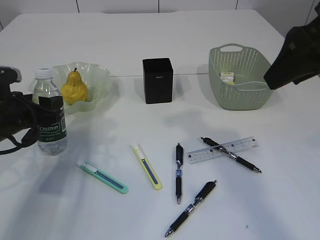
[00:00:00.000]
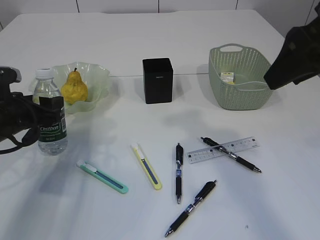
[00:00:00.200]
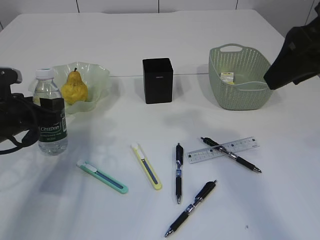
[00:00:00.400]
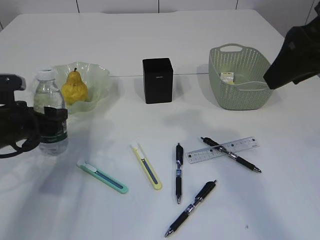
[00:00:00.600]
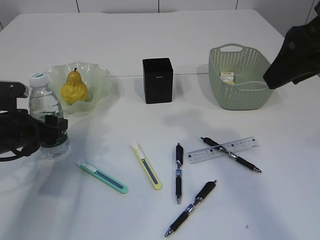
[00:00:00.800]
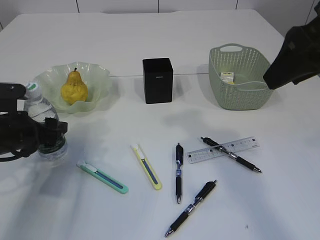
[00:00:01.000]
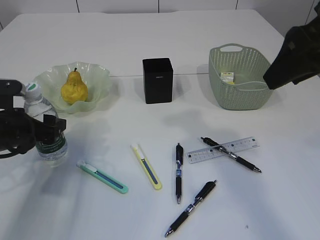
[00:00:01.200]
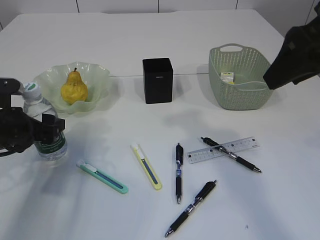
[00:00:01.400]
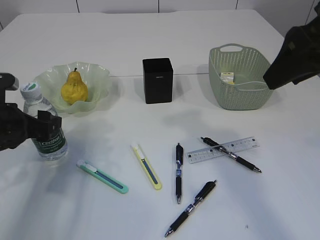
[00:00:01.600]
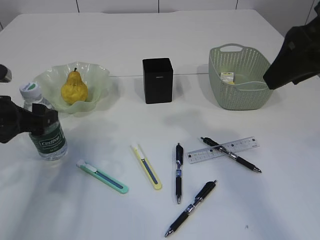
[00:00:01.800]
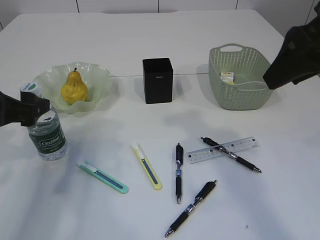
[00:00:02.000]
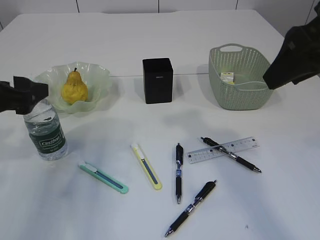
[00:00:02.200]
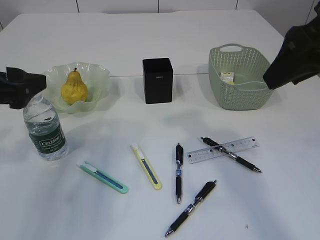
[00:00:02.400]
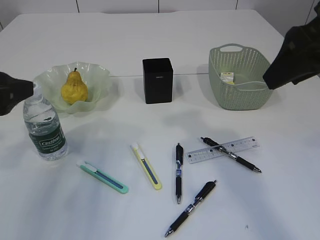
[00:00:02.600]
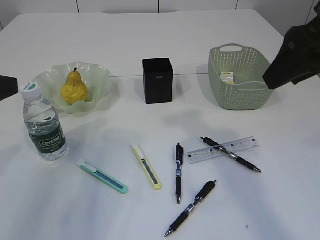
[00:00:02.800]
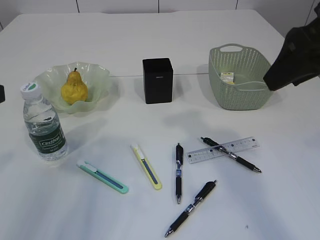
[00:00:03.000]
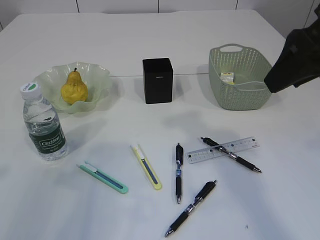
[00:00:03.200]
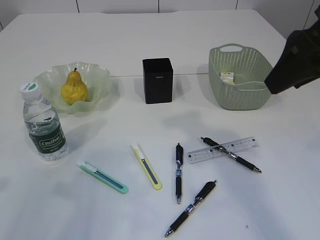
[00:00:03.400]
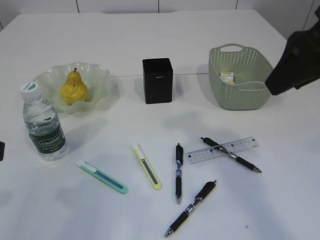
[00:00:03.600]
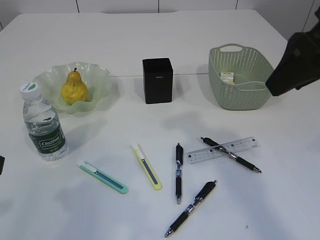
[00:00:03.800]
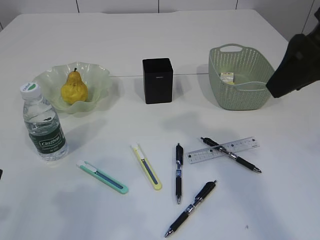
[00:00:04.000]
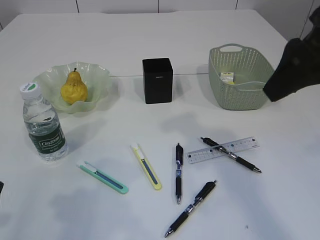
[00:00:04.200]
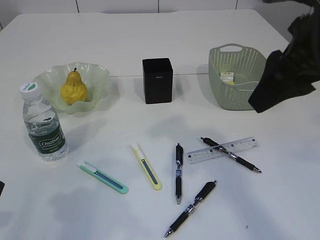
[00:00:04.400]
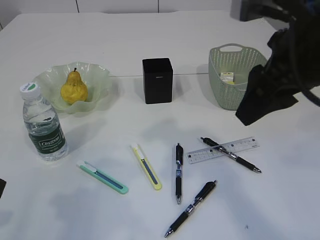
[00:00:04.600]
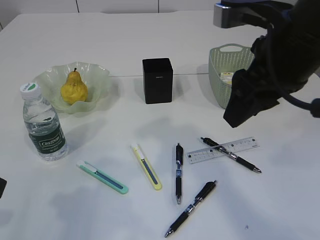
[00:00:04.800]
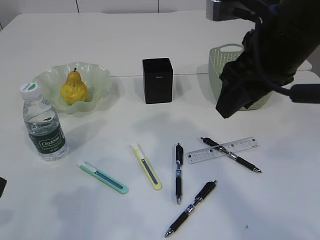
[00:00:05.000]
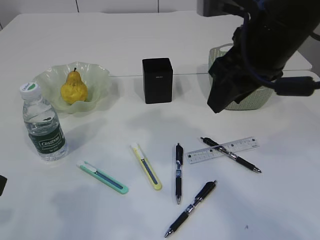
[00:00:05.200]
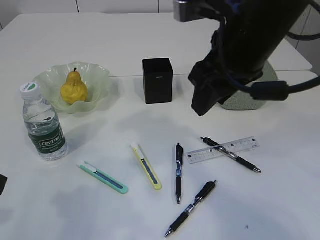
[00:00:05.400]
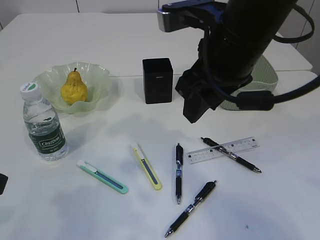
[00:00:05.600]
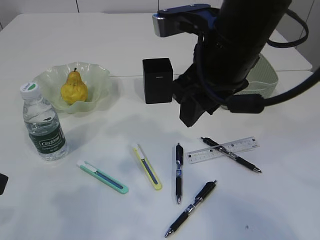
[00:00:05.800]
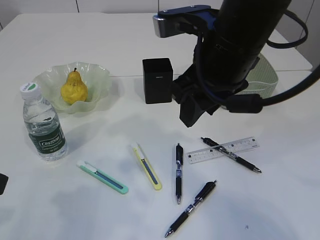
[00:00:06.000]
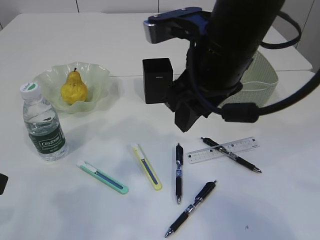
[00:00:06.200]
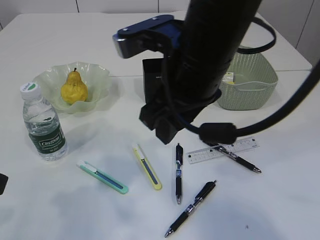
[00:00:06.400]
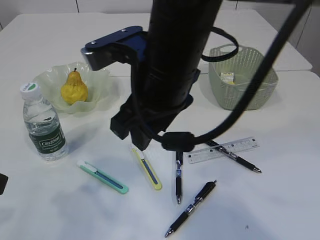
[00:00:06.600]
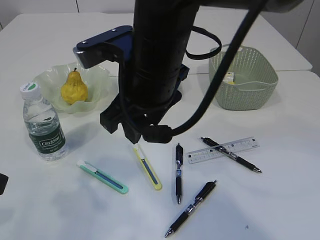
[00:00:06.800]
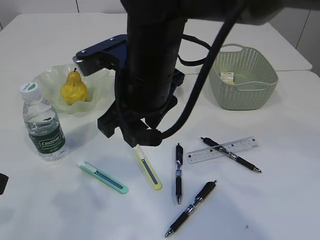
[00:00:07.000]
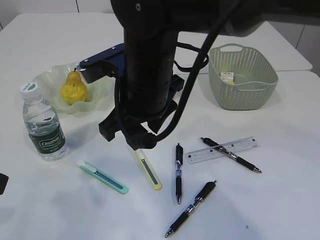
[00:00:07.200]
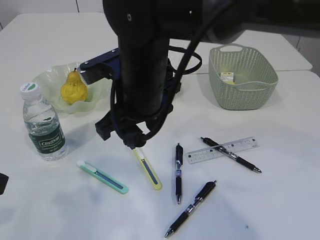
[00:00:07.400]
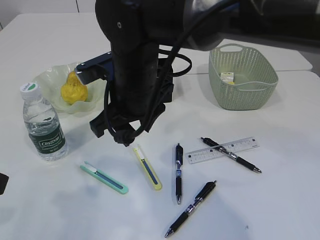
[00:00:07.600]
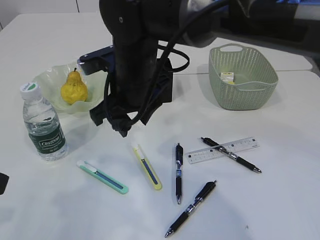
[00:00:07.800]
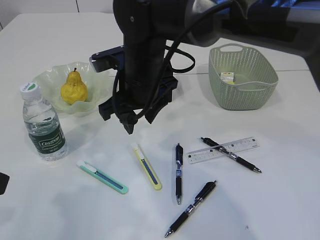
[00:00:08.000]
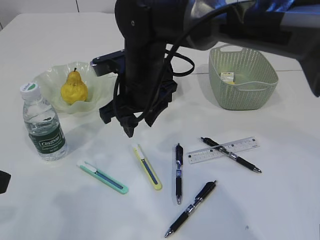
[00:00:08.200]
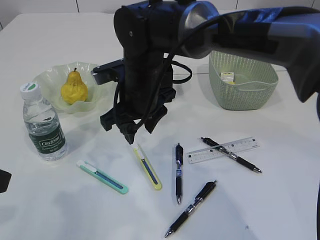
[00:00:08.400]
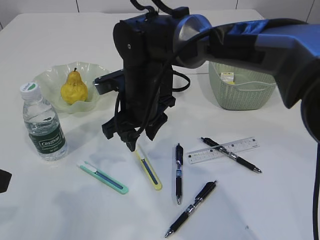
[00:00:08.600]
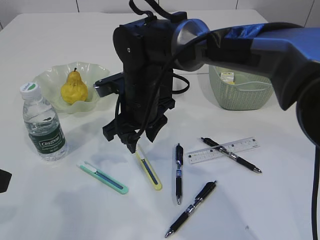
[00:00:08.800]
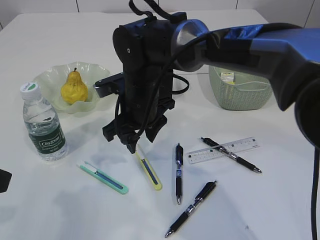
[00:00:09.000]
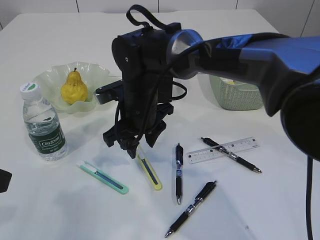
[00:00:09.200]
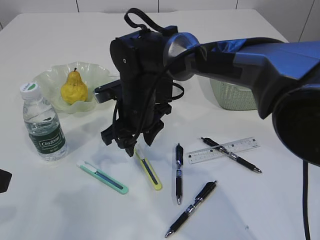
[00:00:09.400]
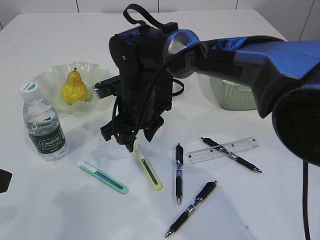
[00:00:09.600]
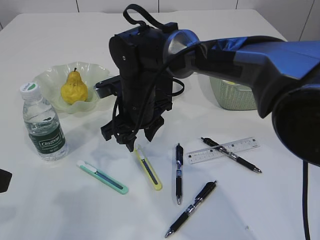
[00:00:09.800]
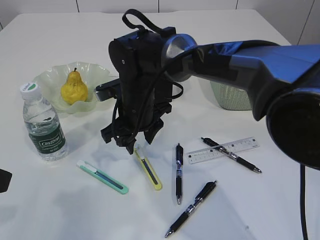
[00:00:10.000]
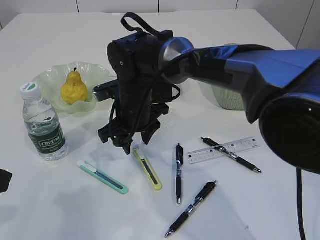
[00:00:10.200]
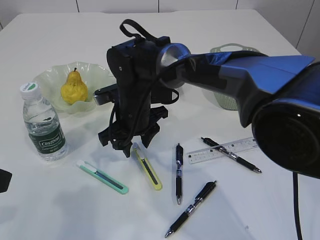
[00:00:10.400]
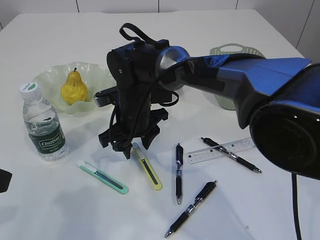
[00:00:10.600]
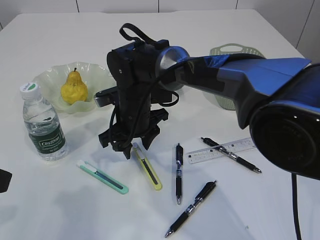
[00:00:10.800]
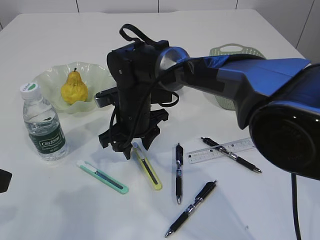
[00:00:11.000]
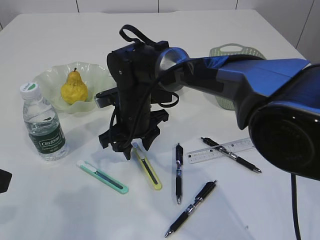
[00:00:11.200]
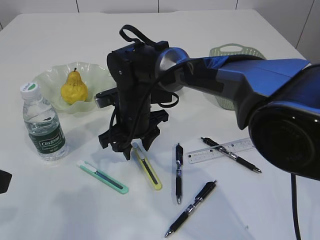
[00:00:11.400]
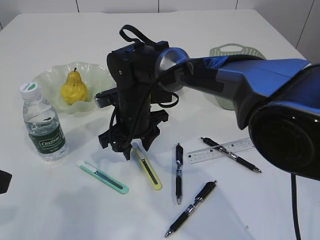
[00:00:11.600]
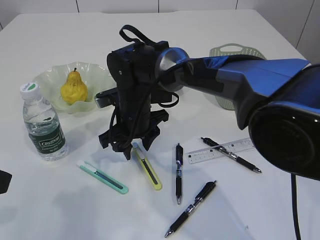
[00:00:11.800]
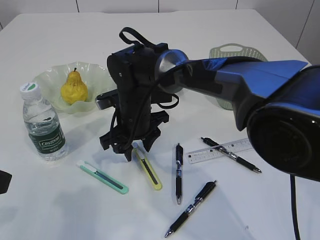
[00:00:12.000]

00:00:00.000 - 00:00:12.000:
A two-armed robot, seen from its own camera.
Step, 00:00:00.000 - 00:00:02.600: Place the bottle.
00:00:00.000 - 00:00:01.600: The grippers stay close to where they were, moving slightly.
00:00:01.600 - 00:00:03.000: The left gripper moves upward and backward, approximately 20 cm.
00:00:04.400 - 00:00:06.000: The right gripper goes roughly 10 cm to the left.
00:00:06.000 - 00:00:07.600: The right gripper travels to the left and downward by about 15 cm.
00:00:07.600 - 00:00:09.000: The right gripper shifts about 5 cm downward.
00:00:10.400 - 00:00:12.000: The two grippers keep their place.

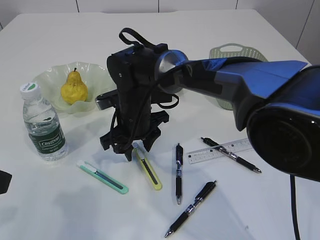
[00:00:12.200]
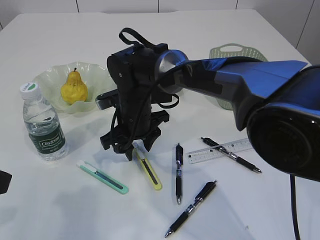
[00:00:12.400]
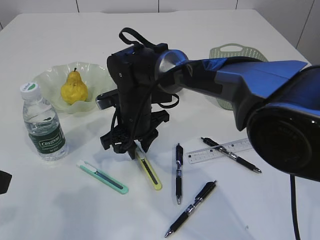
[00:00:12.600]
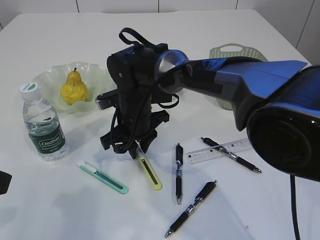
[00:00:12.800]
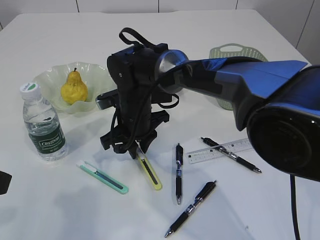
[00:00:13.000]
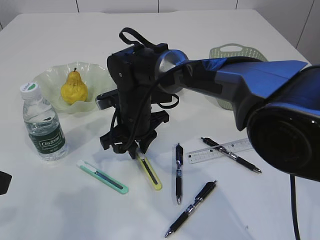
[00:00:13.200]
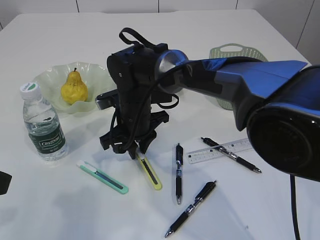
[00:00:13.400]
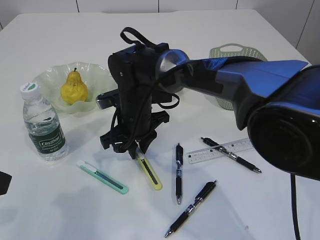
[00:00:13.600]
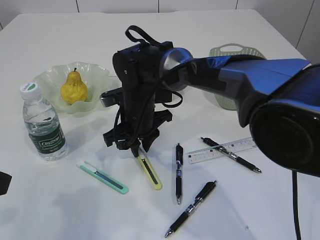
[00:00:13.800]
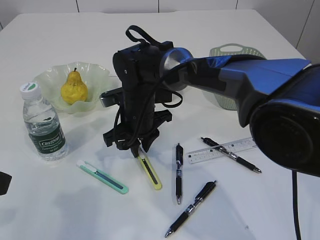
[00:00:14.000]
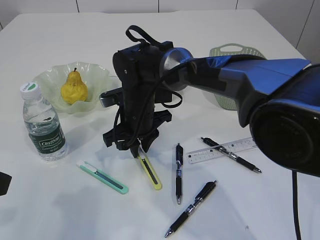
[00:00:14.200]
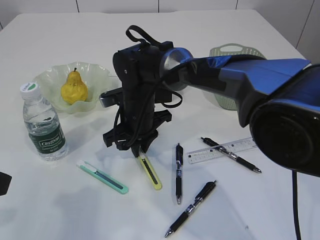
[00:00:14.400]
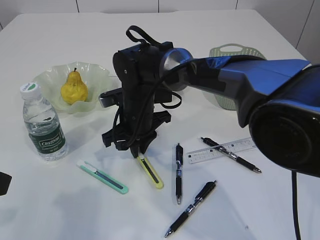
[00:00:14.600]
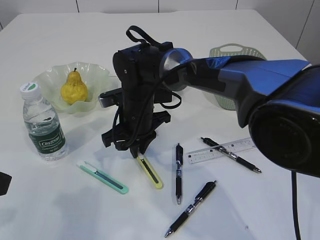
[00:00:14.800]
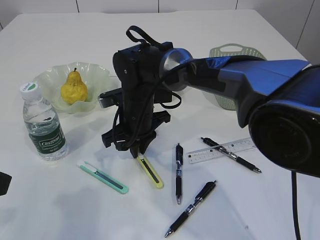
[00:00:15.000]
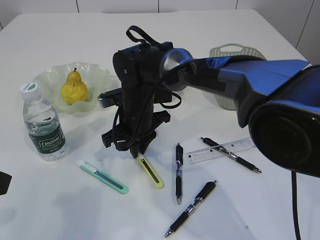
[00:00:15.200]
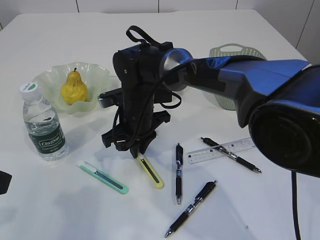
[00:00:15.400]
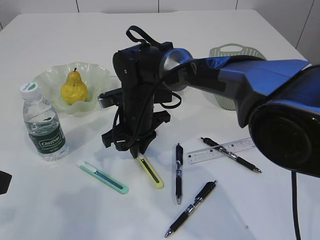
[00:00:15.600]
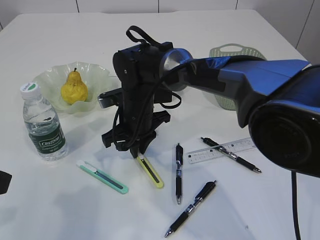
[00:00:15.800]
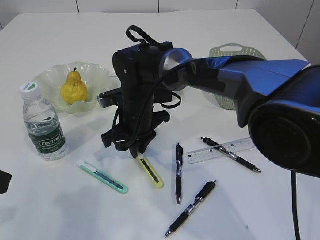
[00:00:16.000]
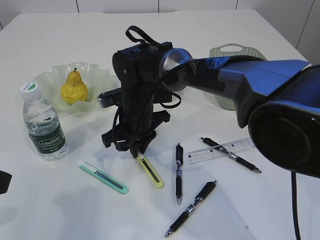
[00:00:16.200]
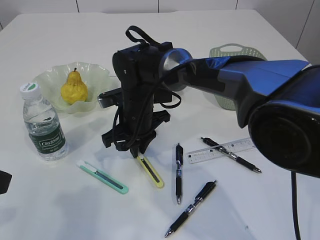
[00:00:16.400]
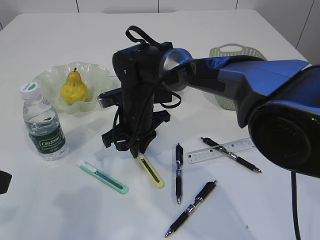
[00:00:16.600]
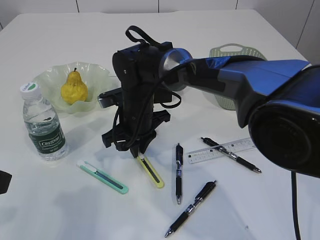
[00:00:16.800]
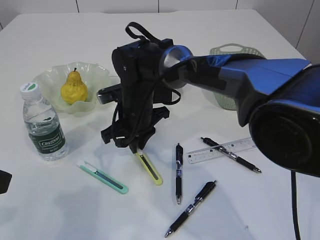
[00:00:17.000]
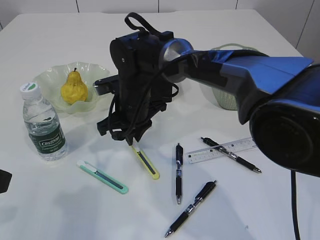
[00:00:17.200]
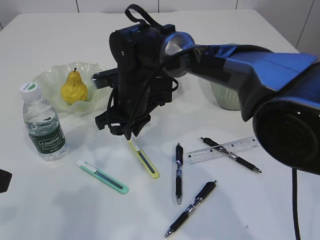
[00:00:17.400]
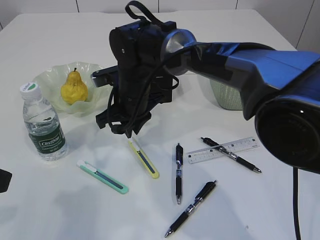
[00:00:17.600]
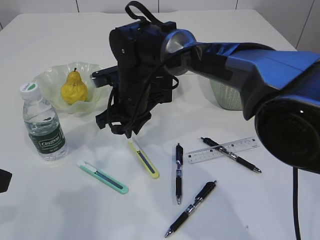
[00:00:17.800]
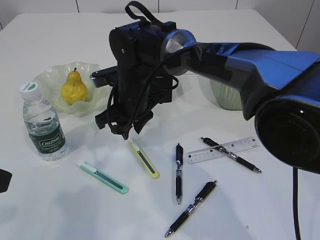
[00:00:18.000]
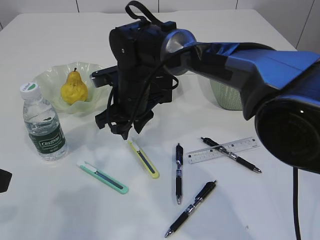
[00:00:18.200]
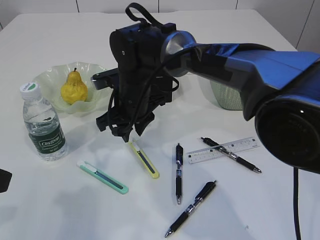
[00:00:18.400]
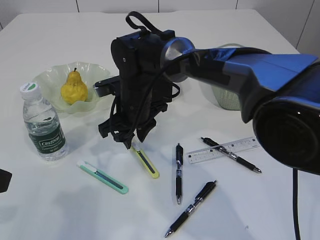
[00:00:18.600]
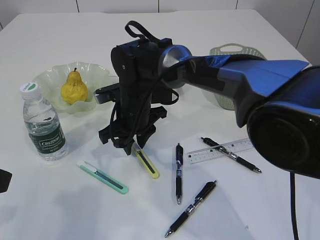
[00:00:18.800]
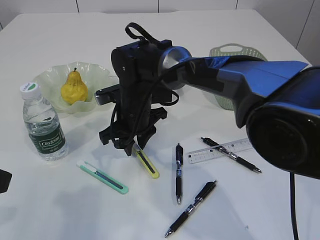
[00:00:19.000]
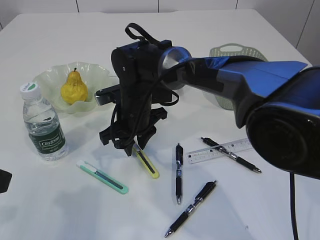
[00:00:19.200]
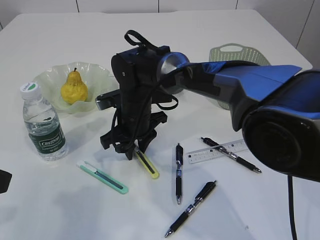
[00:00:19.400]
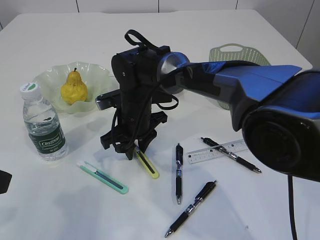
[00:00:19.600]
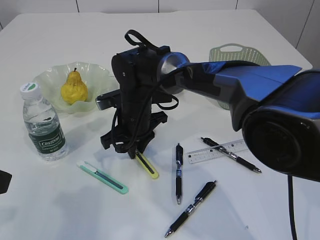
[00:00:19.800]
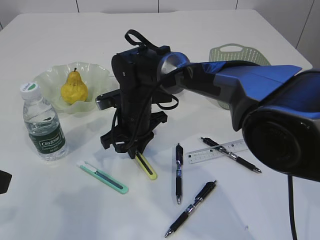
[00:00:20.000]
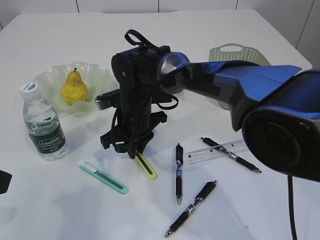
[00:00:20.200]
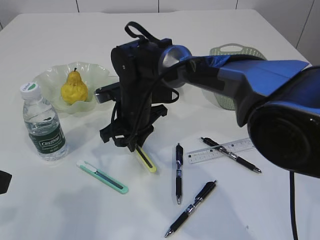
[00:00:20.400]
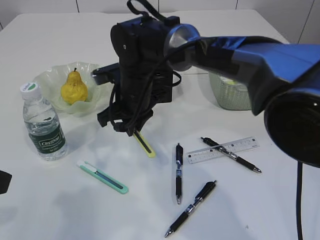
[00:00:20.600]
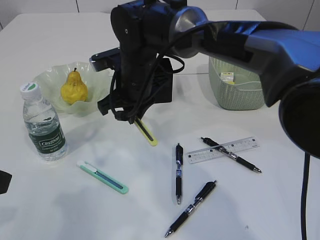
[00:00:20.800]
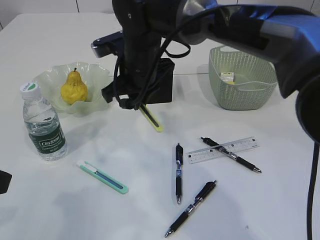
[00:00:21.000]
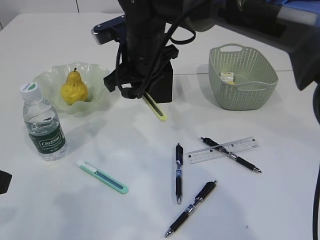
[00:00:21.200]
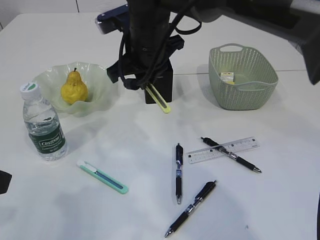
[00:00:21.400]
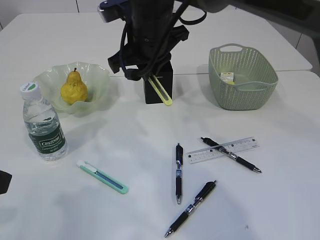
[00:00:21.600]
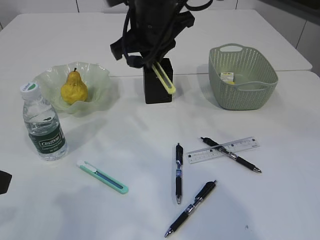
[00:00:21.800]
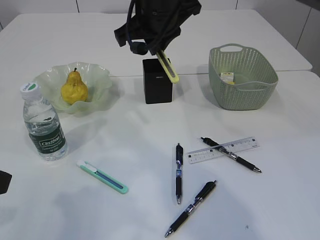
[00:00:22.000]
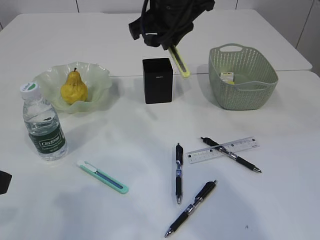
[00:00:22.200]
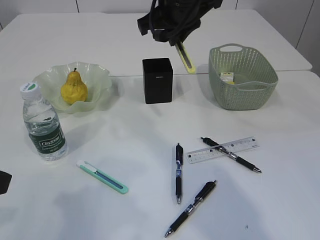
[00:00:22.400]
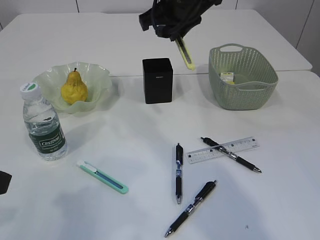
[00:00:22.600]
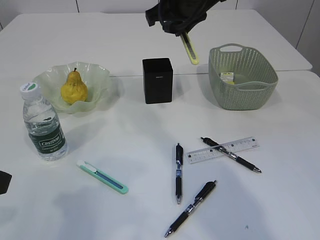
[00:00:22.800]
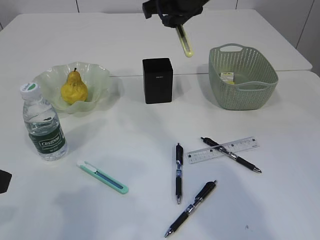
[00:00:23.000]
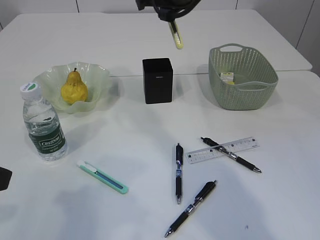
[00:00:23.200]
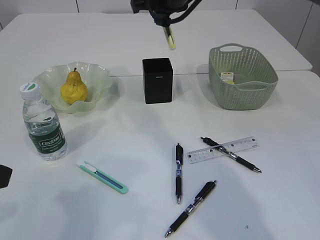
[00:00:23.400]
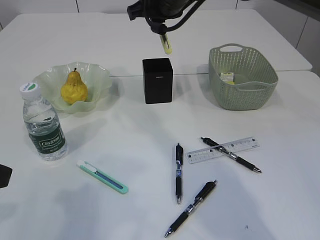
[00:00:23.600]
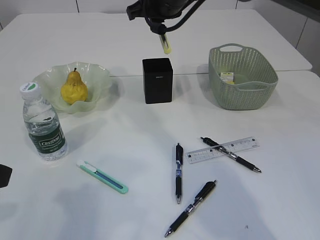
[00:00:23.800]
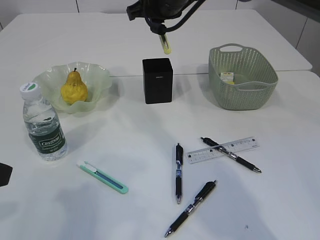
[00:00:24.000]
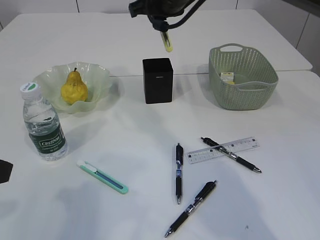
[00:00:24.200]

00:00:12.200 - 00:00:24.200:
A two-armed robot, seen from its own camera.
Step, 00:00:12.200 - 00:00:21.000: pick up the yellow knife.
00:00:12.200 - 00:00:13.800: The right gripper closes up.
00:00:13.800 - 00:00:16.600: The two grippers keep their place.
00:00:16.600 - 00:00:18.200: The right gripper opens its fingers.
00:00:18.200 - 00:00:19.800: The grippers move only a little.
00:00:19.800 - 00:00:21.200: The right gripper goes some 15 cm upward.
00:00:21.200 - 00:00:22.600: The right gripper moves upward and to the right, about 10 cm.
00:00:22.600 - 00:00:24.200: The grippers stay close to where they were, moving slightly.
